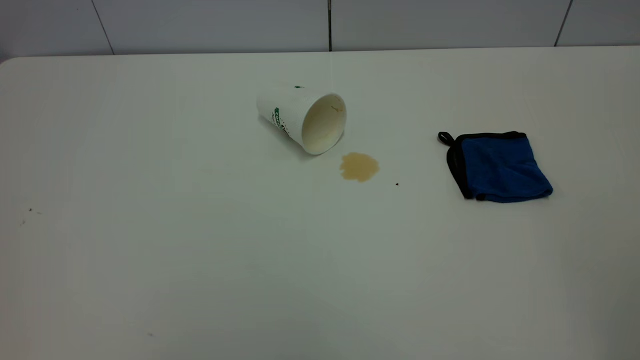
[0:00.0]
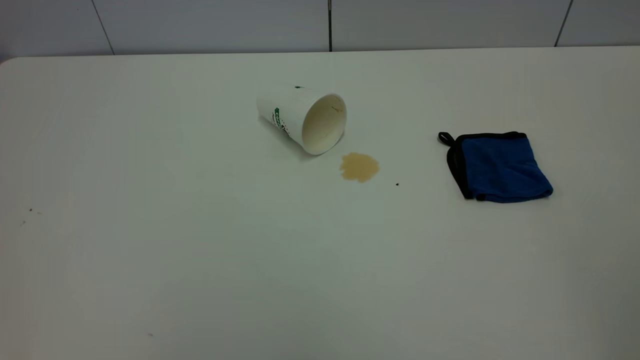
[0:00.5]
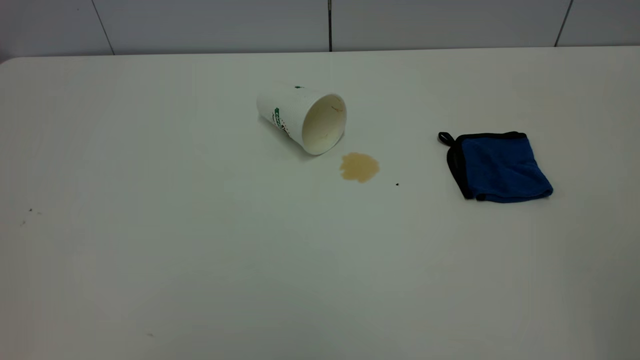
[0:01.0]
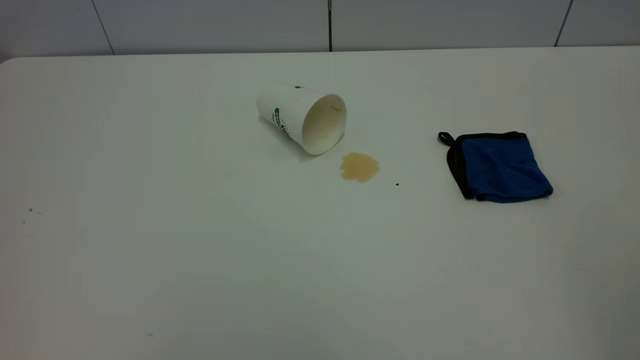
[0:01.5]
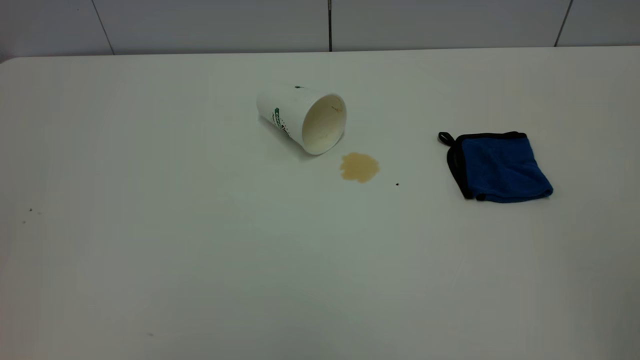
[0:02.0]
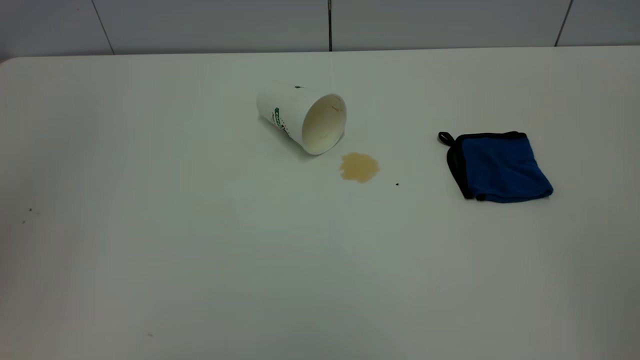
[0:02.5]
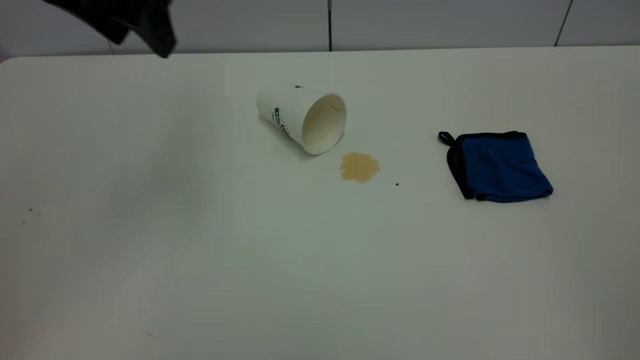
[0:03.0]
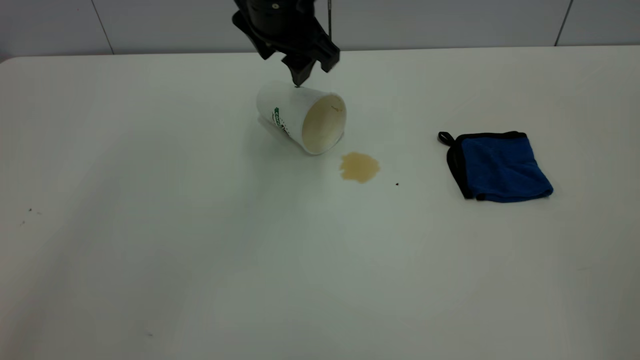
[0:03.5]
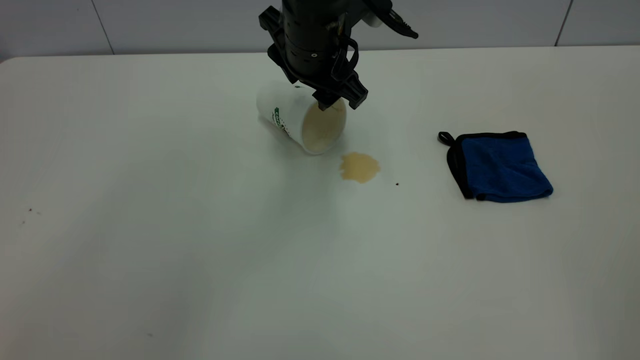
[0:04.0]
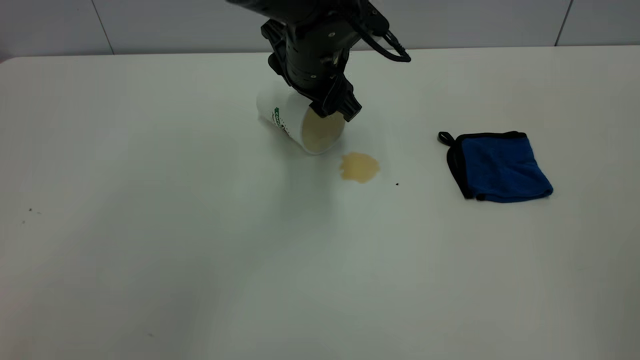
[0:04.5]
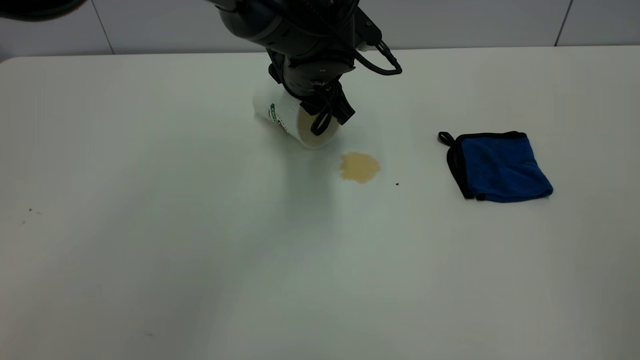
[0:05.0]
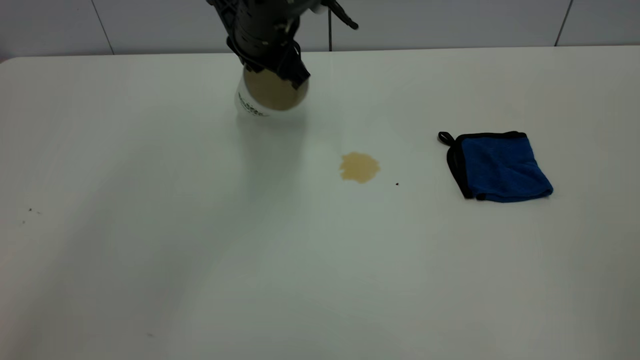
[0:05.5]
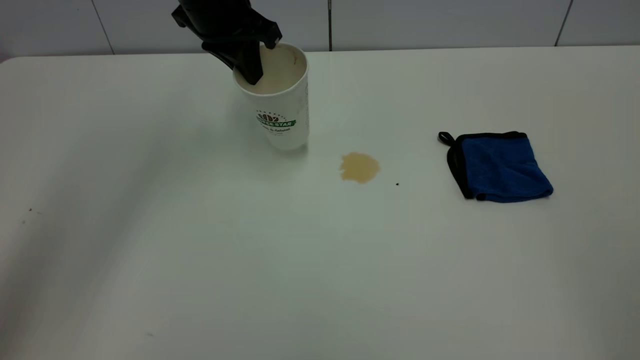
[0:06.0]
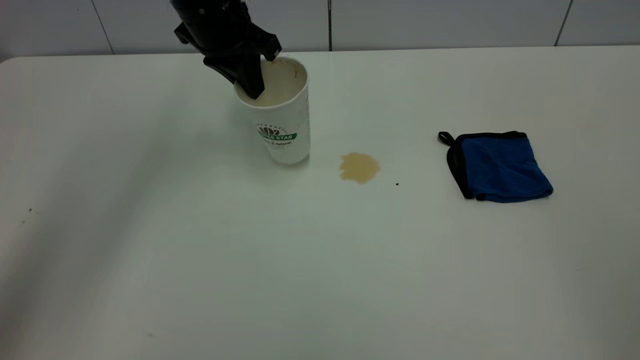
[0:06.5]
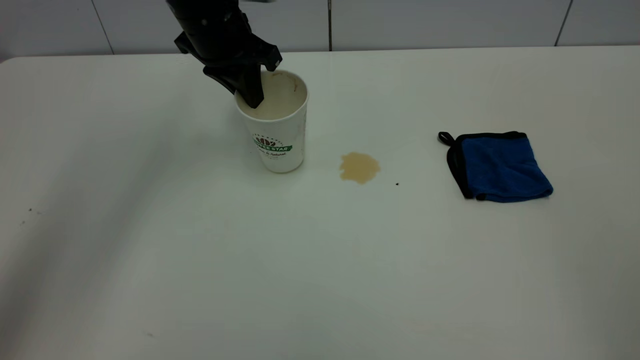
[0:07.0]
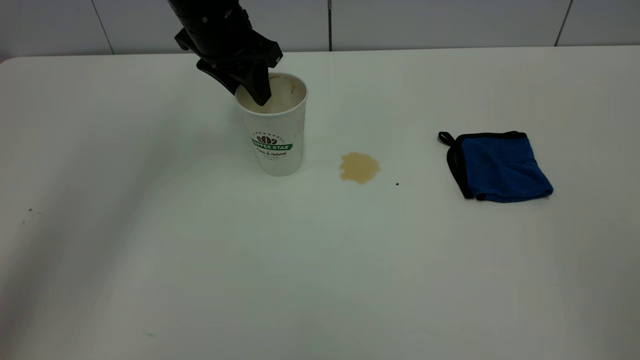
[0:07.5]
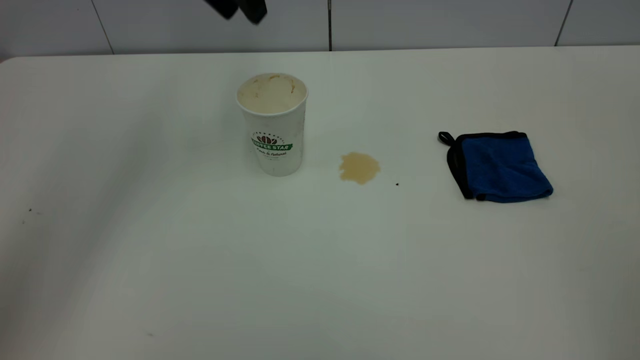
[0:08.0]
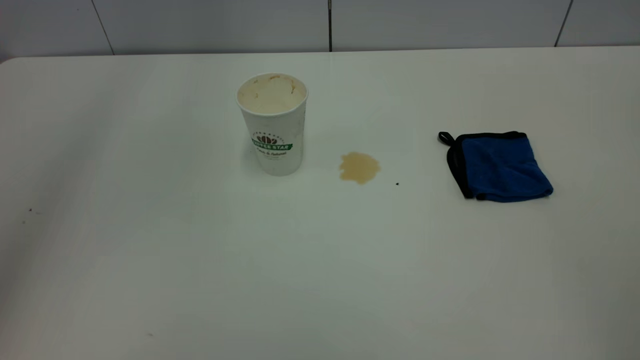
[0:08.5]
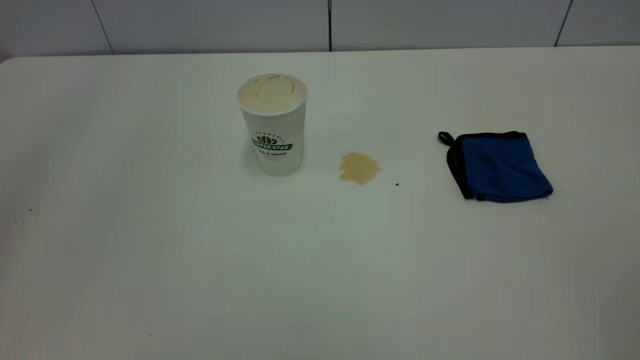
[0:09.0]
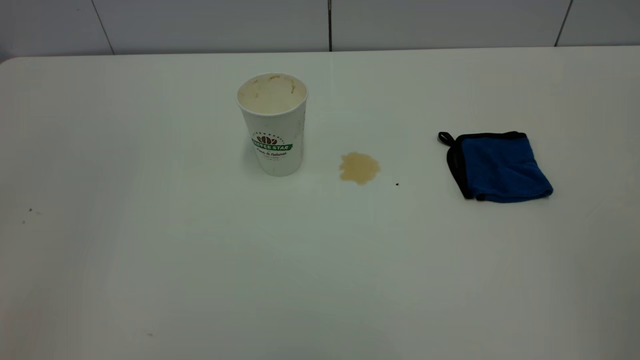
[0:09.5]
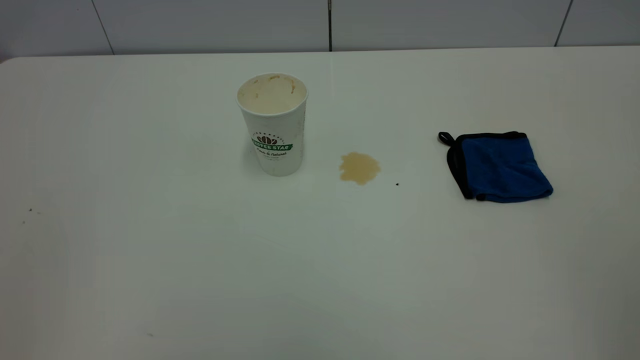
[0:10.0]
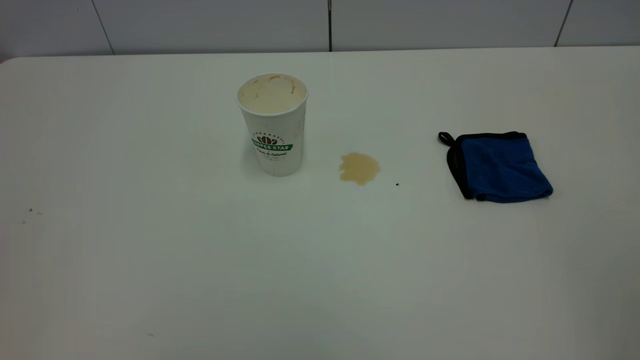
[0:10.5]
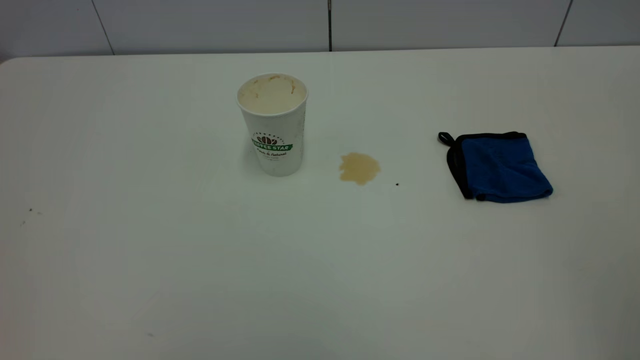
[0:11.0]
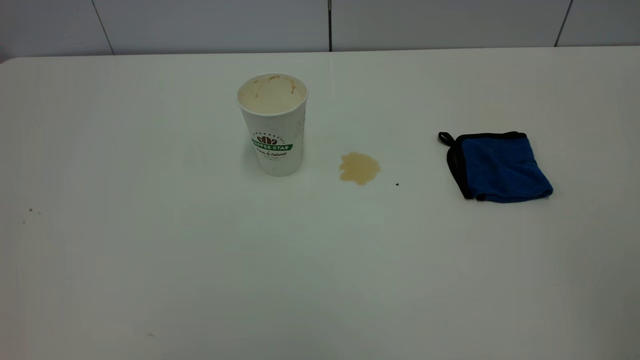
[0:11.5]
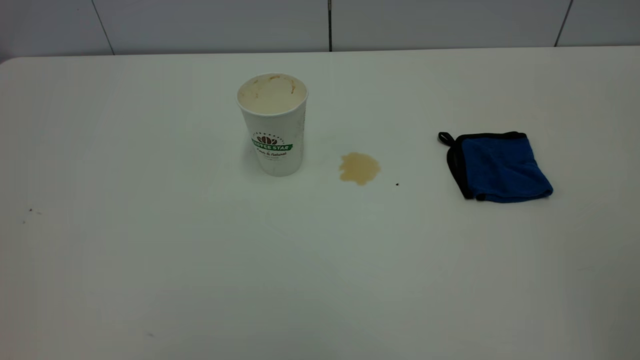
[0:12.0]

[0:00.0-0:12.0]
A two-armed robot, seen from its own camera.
Task of the whole recording: the left gripper pick up the fallen cup and place it upright, the right gripper grasp the blue rag and wipe the tea stain on the table, the right gripper put the blue rag back in its original position.
Step, 0:00.0 to 0:07.5: Stand the paper cup upright.
0:02.0 to 0:04.0: The left gripper is displaced forward, to the right and downward by approximately 50 cm.
0:04.0 to 0:06.0: The left gripper goes about 15 cm to the left and forward, and closes.
0:06.0 to 0:08.0: The left gripper moves upward, roughly 10 cm, and opens.

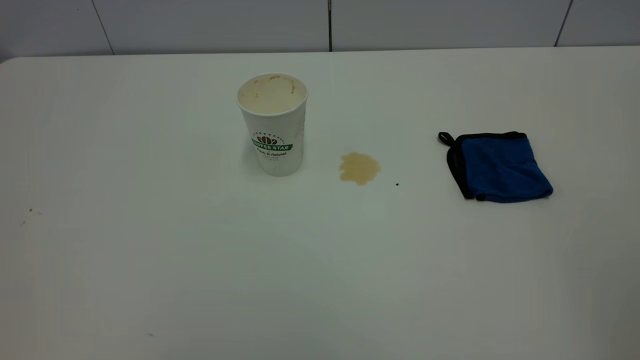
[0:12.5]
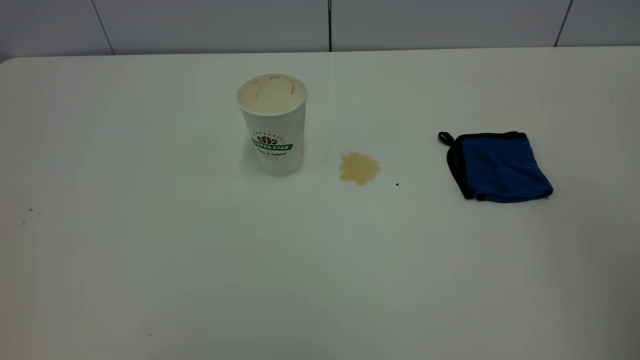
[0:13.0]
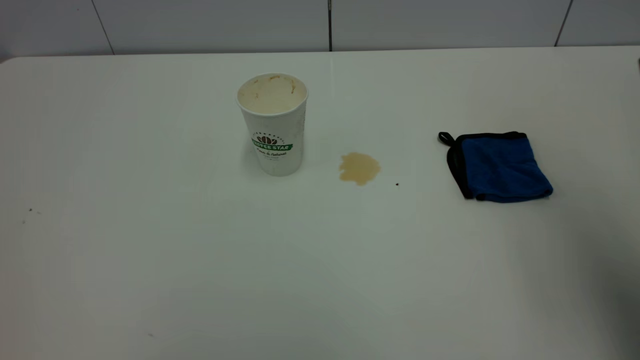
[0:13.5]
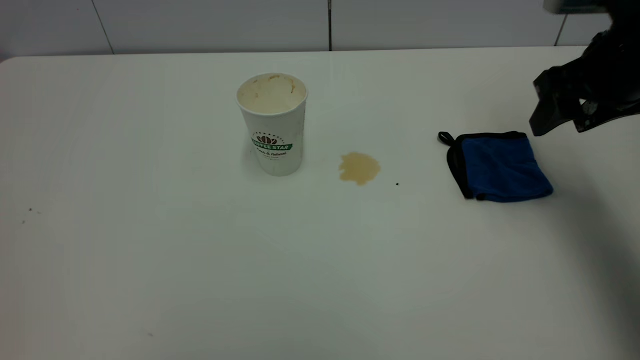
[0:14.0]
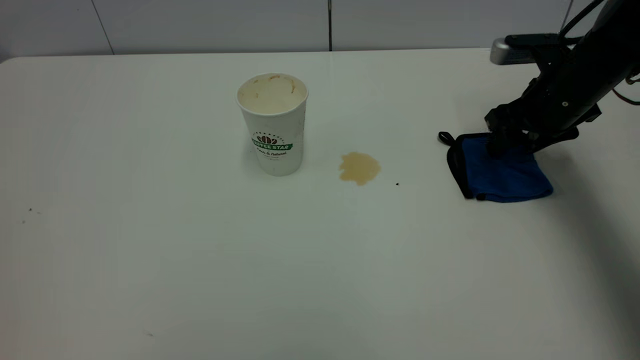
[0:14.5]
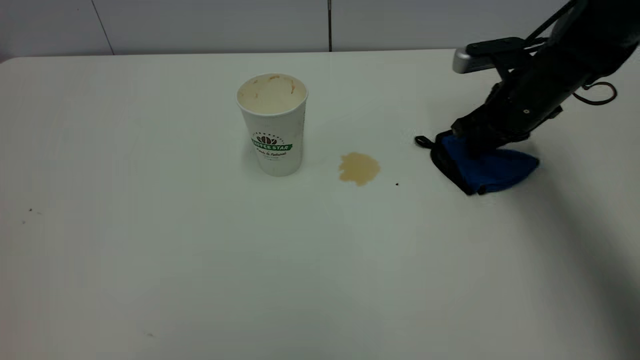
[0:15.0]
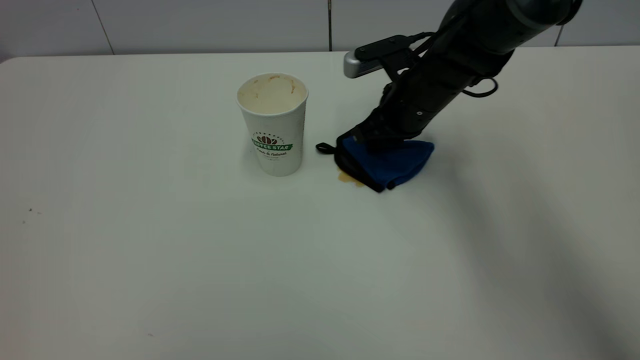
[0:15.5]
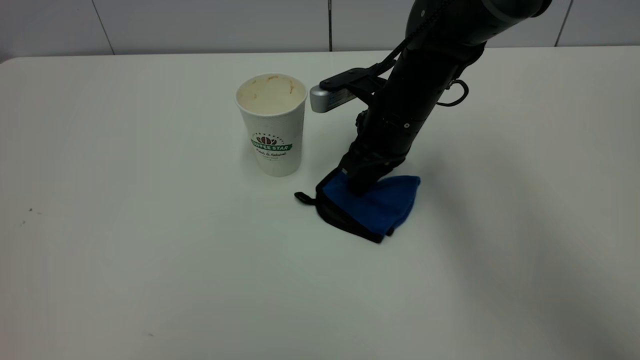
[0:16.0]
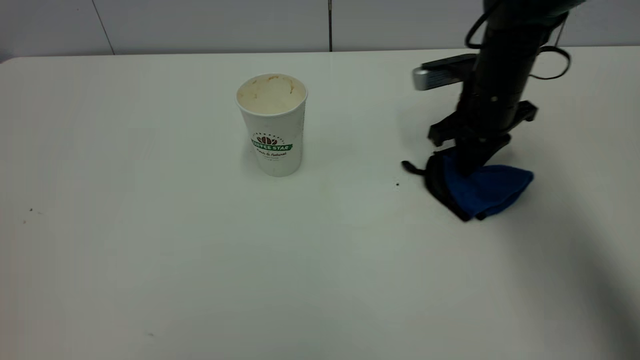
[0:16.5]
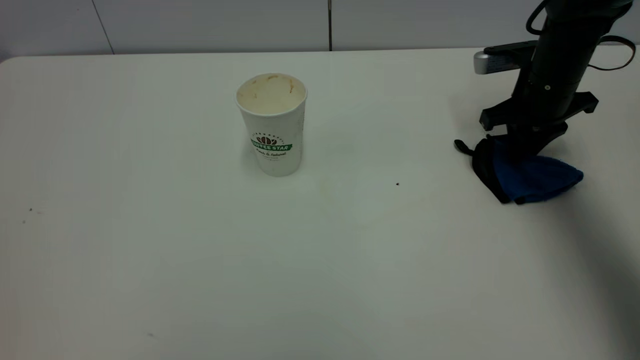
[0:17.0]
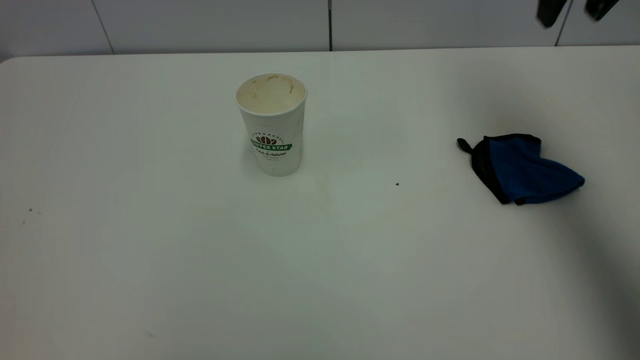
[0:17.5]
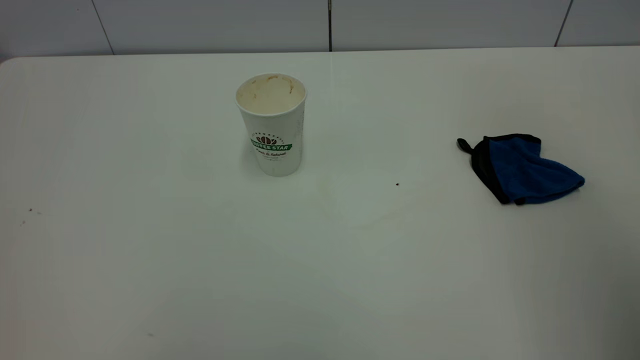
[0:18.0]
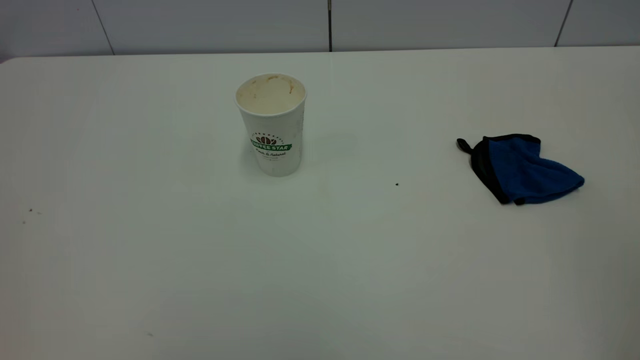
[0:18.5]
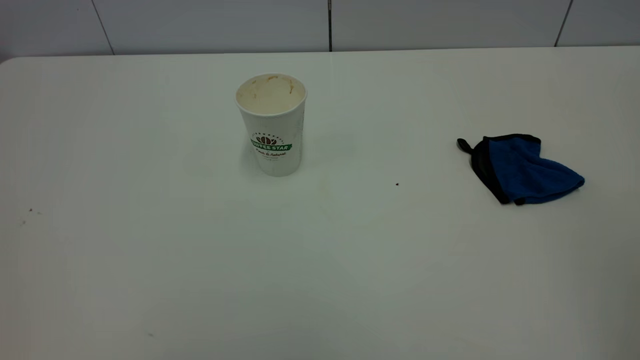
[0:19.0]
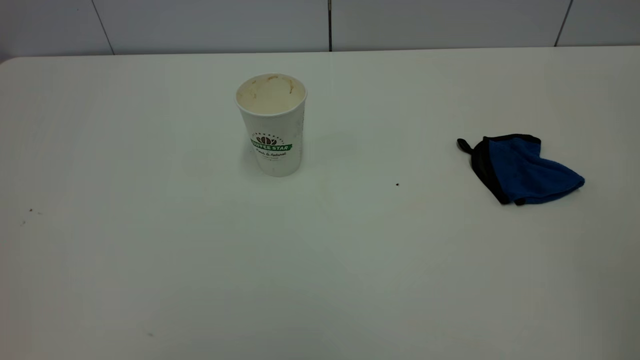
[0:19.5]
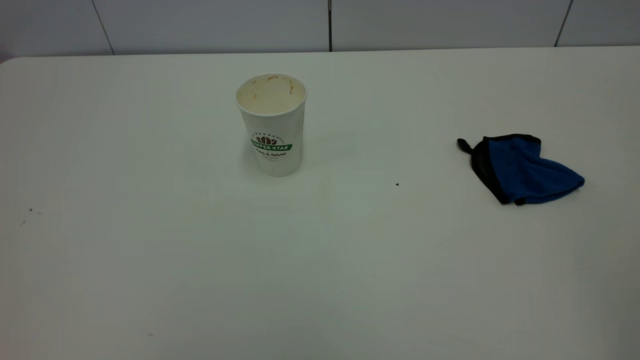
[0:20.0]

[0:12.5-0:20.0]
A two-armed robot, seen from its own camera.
Task of the whole recording: the left gripper pick up the fallen cup and place it upright, the right gripper grasp the blue rag and wipe the tea stain on the table, the right gripper put the blue rag back in its original position.
Step, 0:12.5 to 0:17.0: Wipe the stains off the table with a rag.
0:12.5 to 0:14.5: The right gripper is displaced forward and downward by roughly 50 cm.
0:14.5 to 0:16.5: The right gripper travels to the left and back again, approximately 20 cm each way, and closes up.
0:16.5 to 0:18.0: The right gripper is displaced upward and backward by about 40 cm, and opens up.
